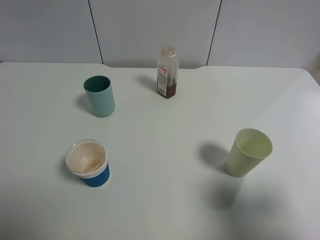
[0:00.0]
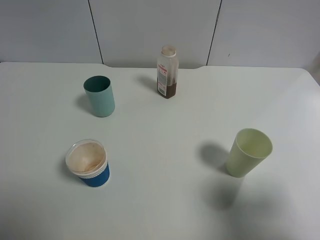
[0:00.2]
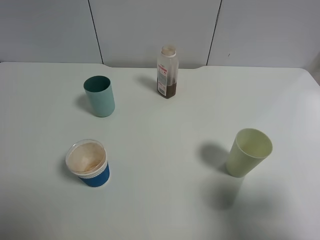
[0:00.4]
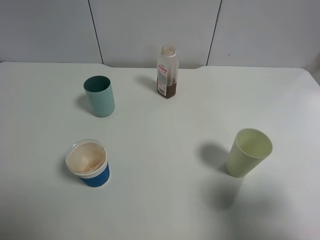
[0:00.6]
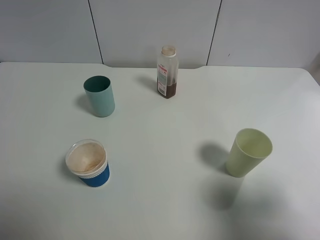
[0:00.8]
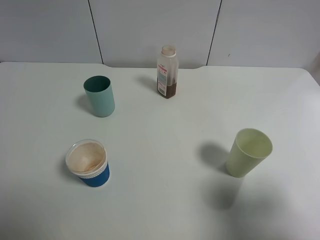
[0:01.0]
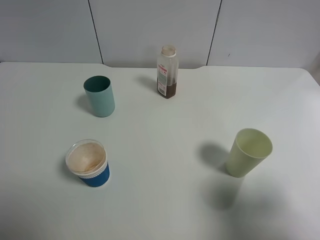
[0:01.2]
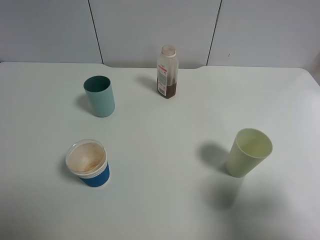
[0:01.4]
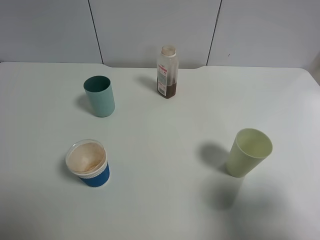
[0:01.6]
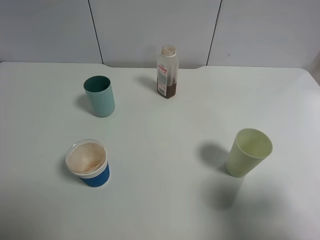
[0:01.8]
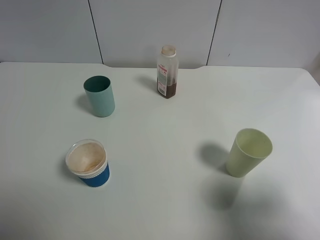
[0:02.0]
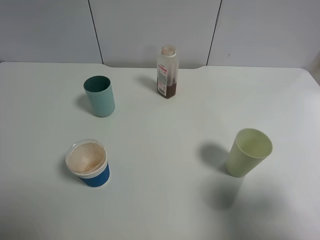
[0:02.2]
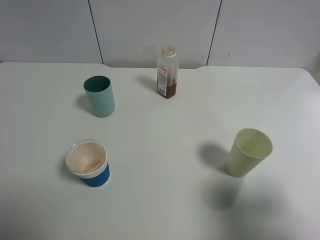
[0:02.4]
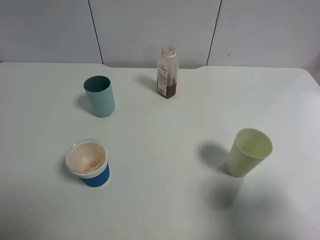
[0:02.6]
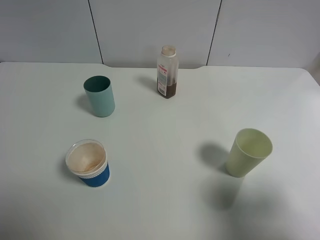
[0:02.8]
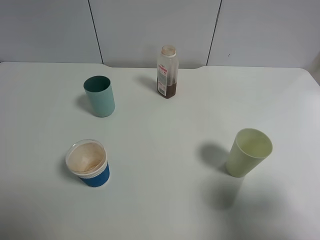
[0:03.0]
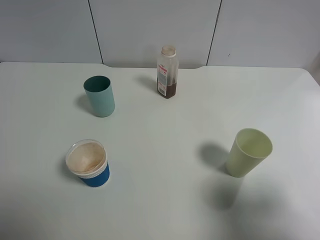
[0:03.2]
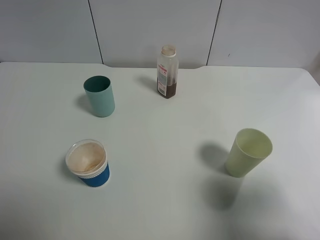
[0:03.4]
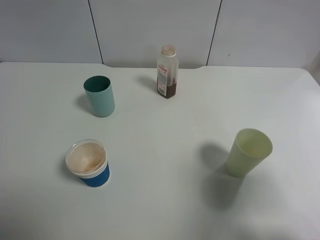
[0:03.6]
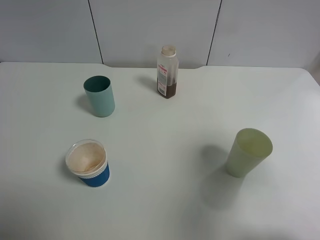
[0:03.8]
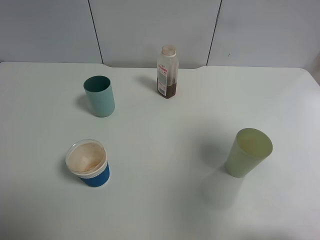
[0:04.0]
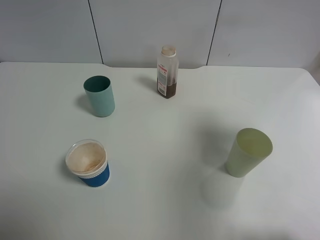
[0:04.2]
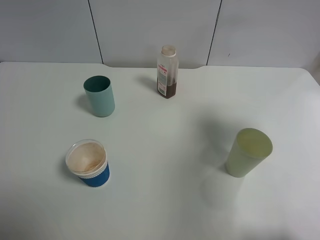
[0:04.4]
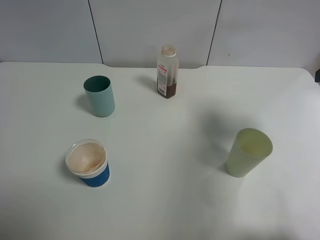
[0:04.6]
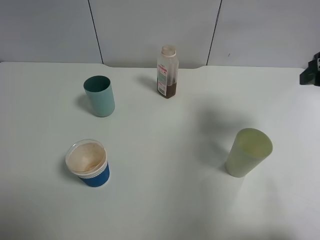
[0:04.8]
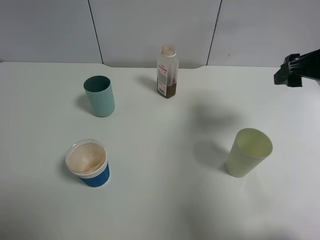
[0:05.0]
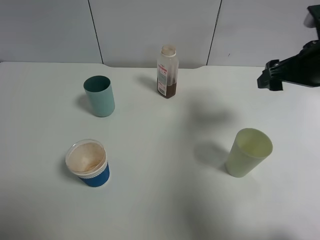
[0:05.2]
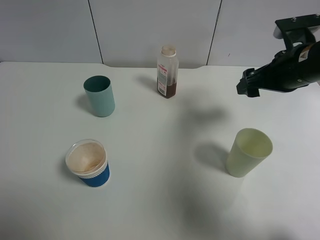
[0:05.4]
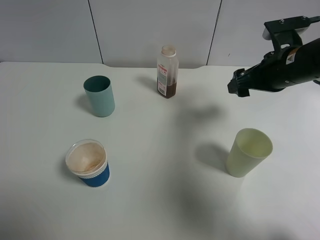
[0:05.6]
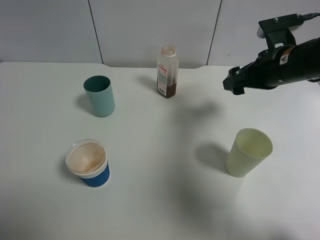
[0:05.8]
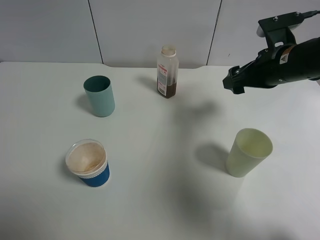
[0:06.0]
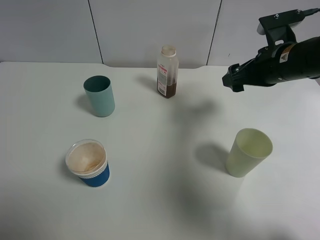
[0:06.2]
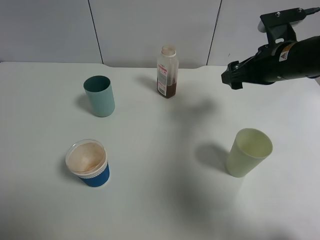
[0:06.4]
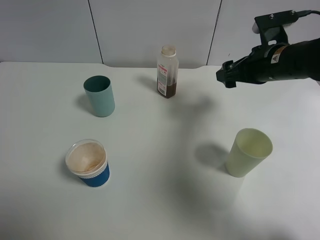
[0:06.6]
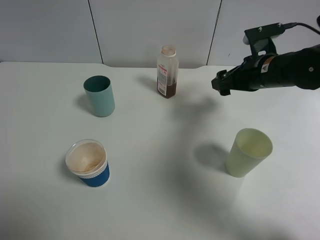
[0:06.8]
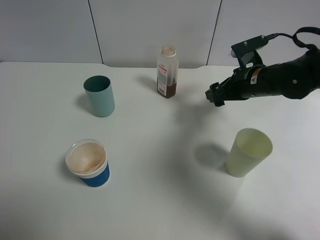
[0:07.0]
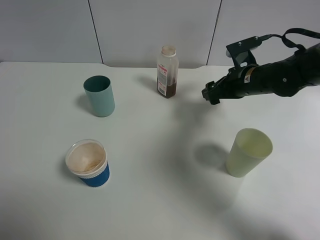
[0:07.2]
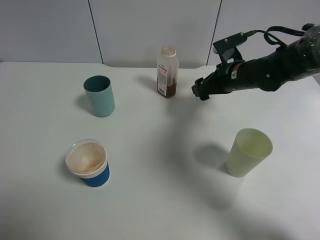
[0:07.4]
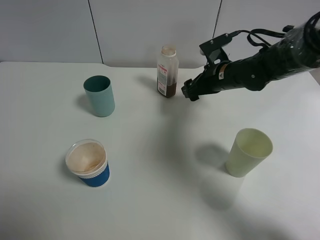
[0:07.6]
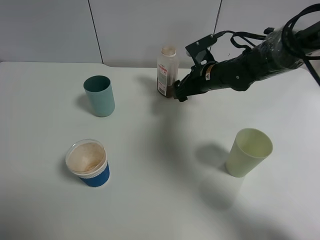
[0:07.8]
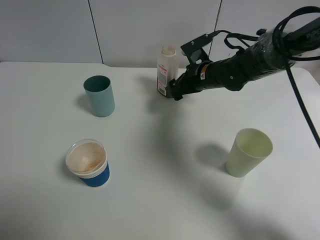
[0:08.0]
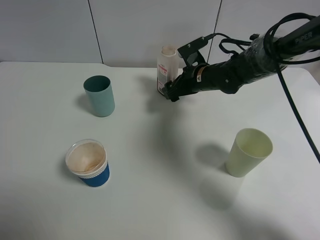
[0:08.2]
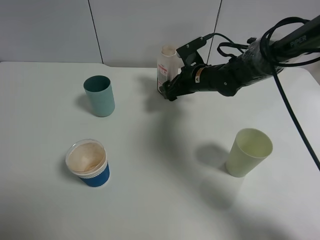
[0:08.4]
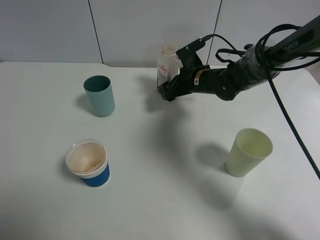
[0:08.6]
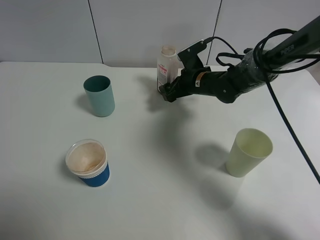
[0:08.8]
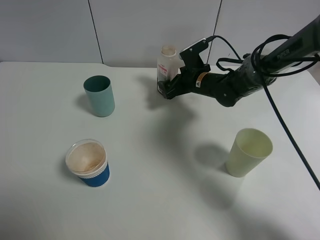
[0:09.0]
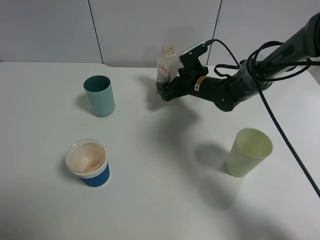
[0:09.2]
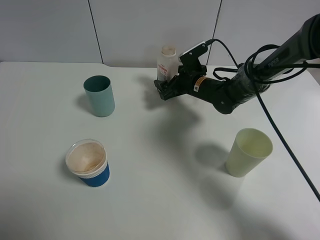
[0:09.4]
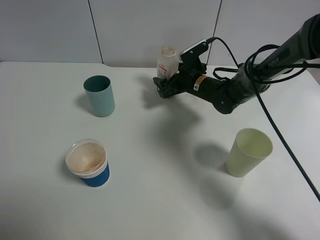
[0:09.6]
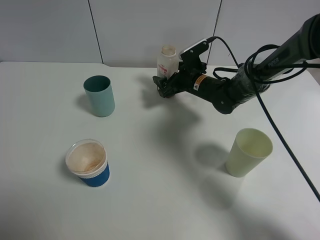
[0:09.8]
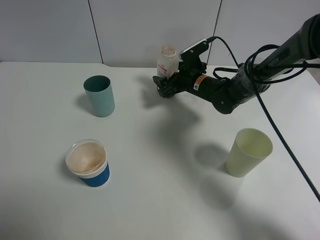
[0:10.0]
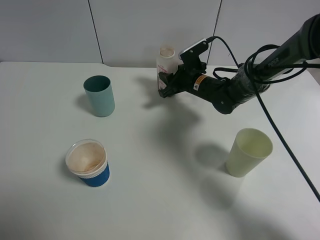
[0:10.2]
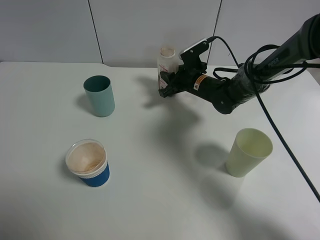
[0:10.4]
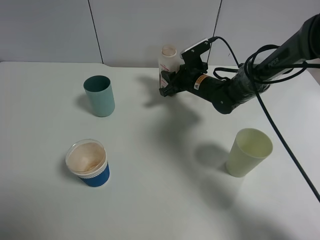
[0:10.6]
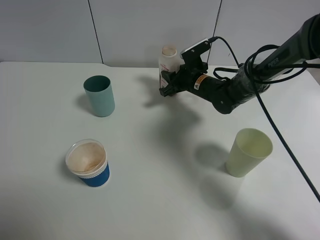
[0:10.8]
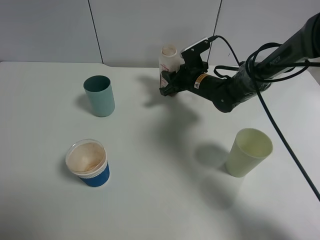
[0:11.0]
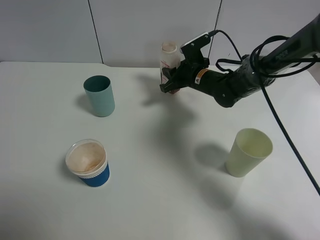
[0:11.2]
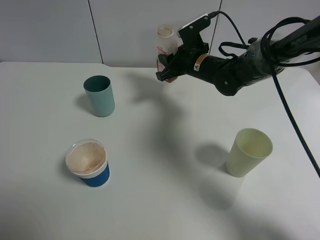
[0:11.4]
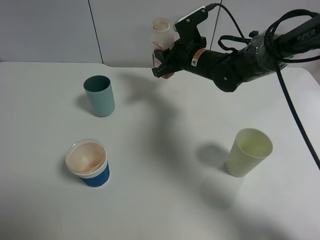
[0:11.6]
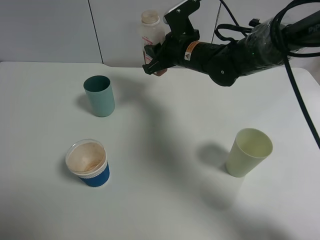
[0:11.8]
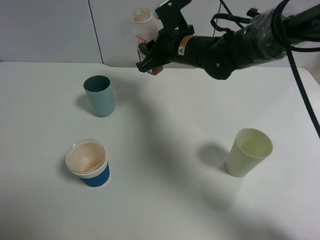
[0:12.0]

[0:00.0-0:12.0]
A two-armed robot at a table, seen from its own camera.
Task of the whole recording: use a gripper to hold the bottle of the drink and pour it into a random cup.
Step, 0:00.0 to 0:10.2: Grasp the cranberry juice bottle with the right gripper.
0:00.0 to 0:03.0: The two grippers keep their place.
0:03.0 to 0:04.4: The right gripper goes about 20 cm forward.
0:04.4 to 0:06.0: The right gripper is displaced forward, downward and to the left by some 20 cm.
0:06.0 to 0:07.6: The right gripper is displaced downward, forward and to the left by some 15 cm.
0:07.6 to 0:09.0: The right gripper shifts by some 5 cm.
0:09.0 to 0:10.4: The right gripper closes up.
0:10.4 to 0:12.0: The right gripper goes about 15 cm upward and to the left.

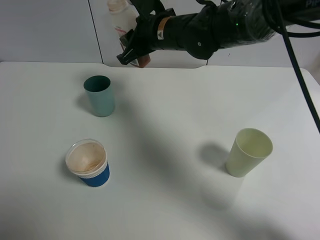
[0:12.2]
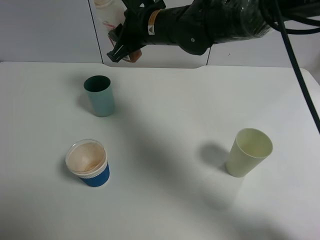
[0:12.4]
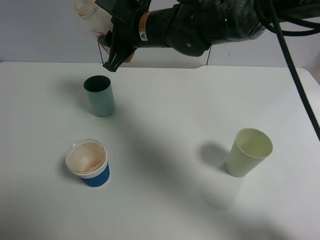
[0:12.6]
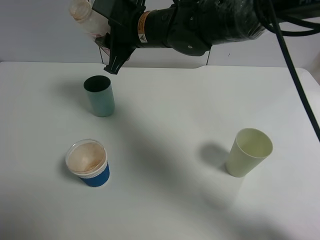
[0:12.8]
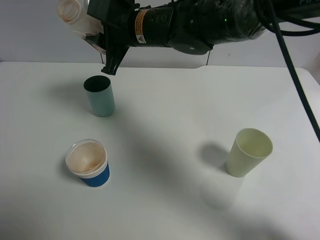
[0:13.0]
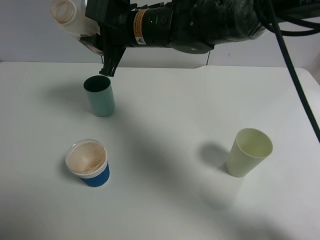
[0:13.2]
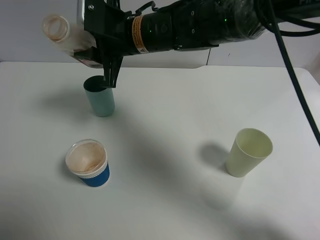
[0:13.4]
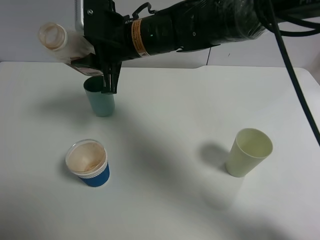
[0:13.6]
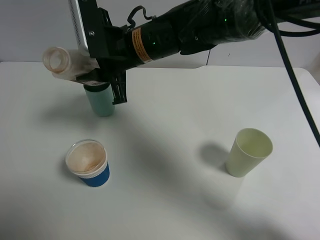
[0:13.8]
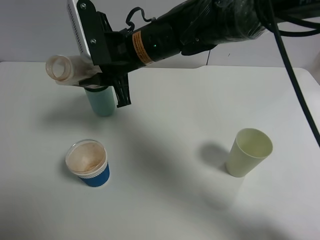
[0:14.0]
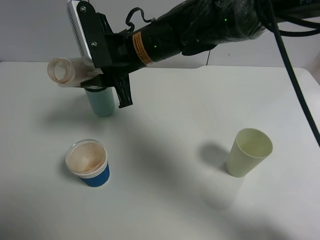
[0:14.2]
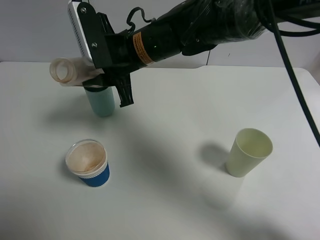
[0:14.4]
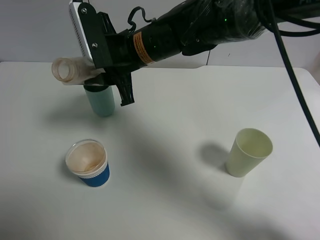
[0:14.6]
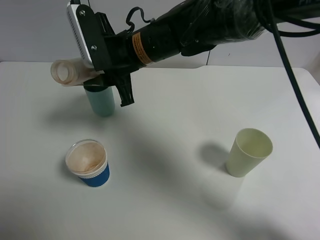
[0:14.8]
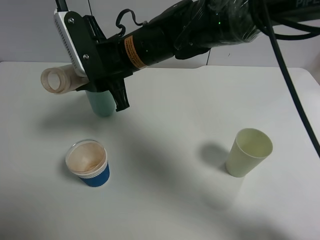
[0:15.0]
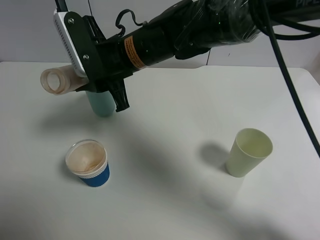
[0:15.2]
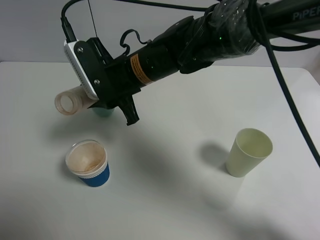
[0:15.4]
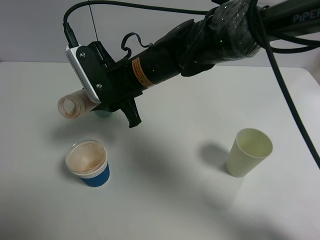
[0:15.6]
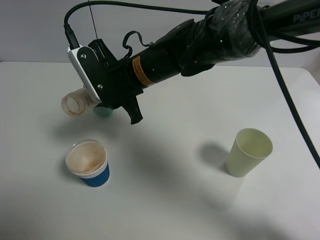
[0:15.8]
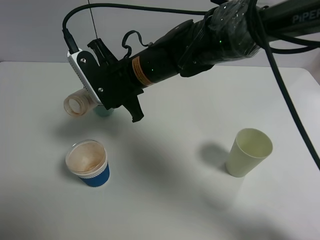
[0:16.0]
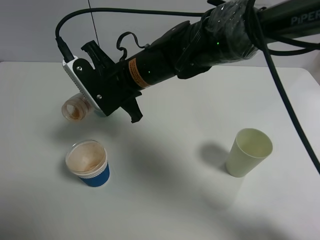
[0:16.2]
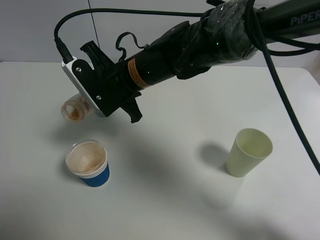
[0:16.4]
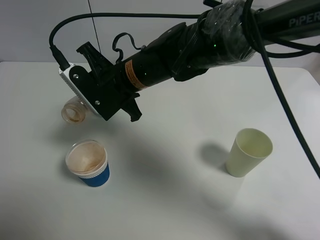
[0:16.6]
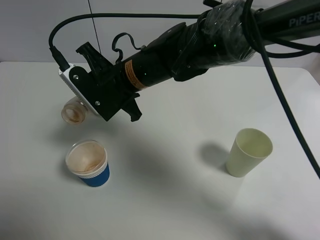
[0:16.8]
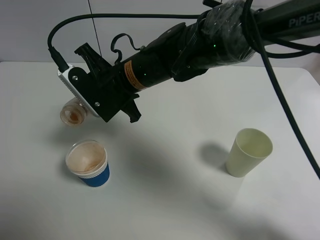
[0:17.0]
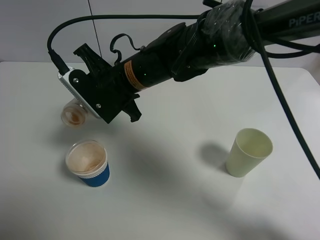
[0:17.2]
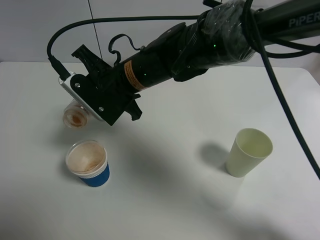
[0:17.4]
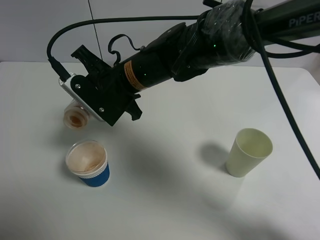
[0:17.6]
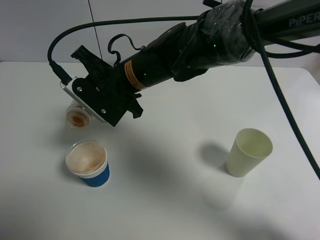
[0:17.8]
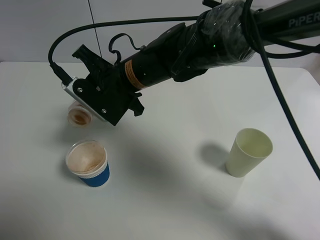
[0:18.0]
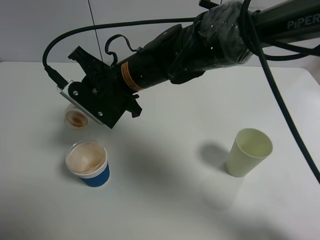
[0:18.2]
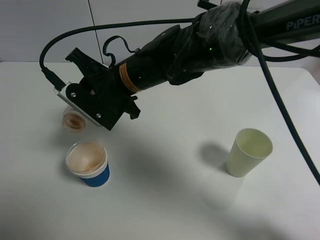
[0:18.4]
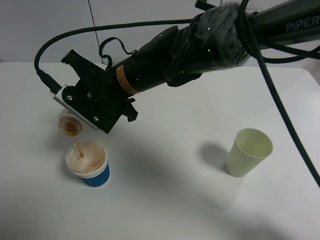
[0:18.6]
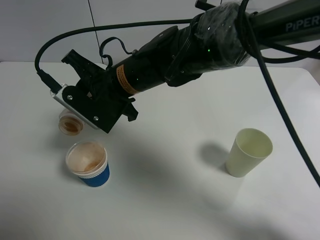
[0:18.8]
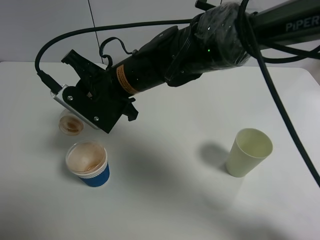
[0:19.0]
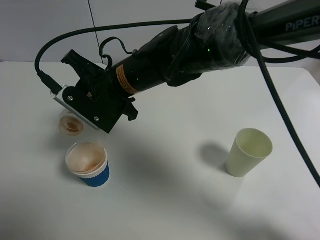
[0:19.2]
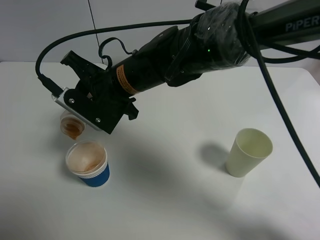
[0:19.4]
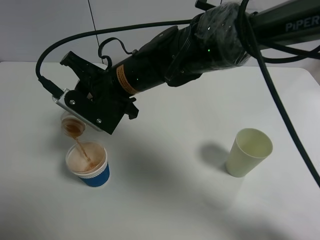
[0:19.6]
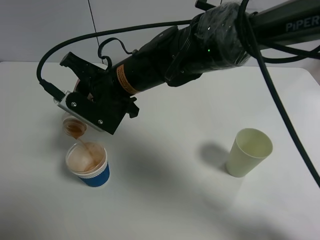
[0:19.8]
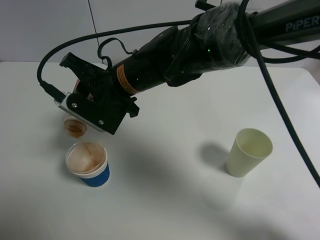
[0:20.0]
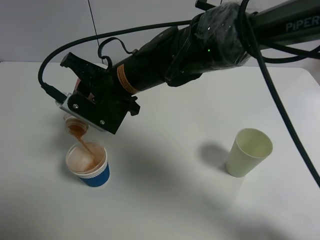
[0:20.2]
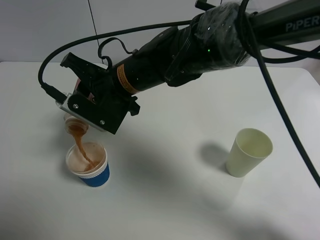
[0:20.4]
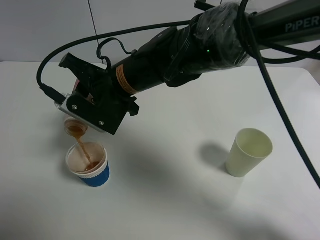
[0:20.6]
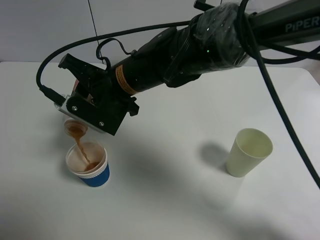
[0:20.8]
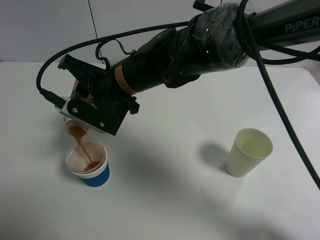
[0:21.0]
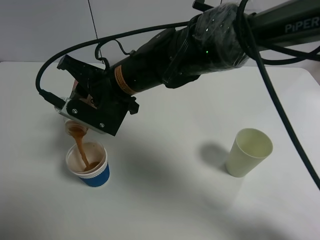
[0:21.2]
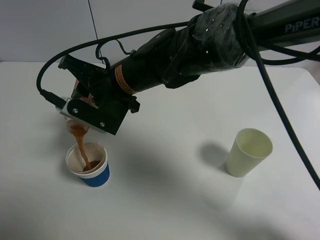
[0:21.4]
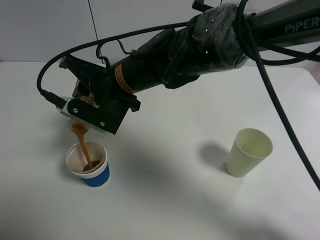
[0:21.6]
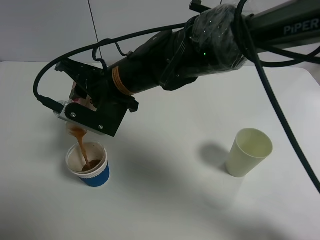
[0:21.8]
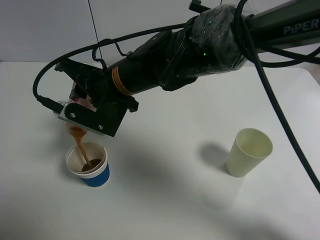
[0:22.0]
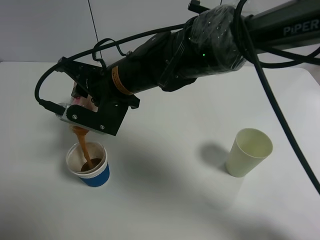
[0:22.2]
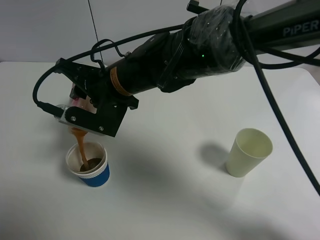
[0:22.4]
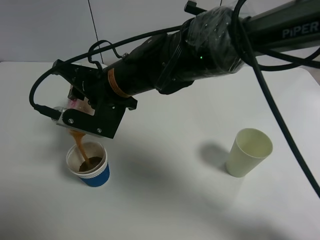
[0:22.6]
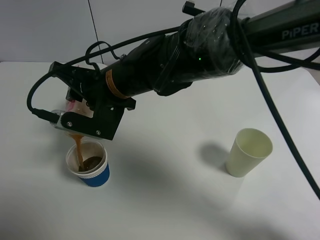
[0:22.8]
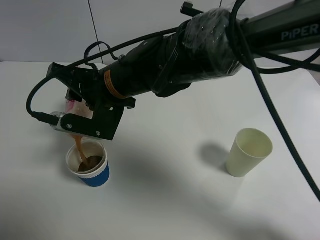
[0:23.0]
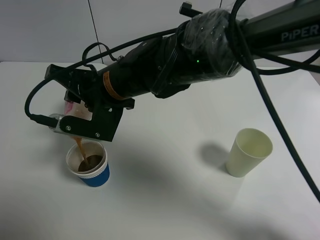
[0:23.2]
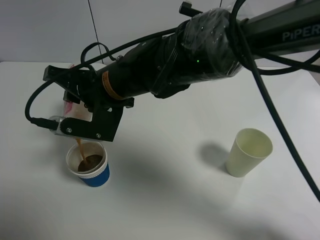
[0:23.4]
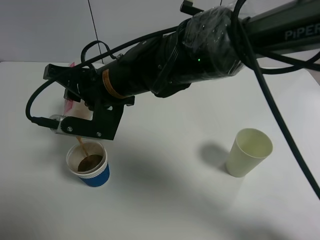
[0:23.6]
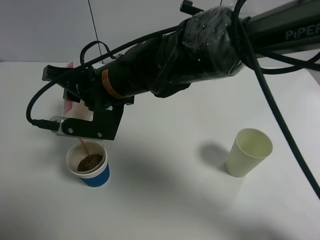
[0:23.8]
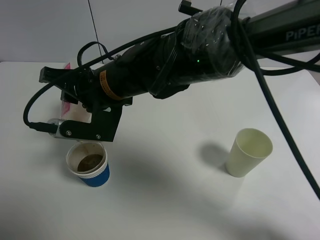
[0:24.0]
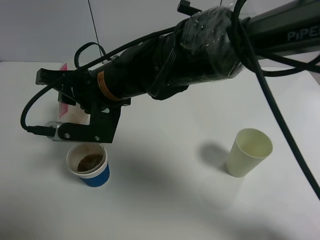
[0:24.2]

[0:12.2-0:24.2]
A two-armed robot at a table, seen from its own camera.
Task of the whole recording: use a gripper to hold the bottle of the drink and pour it into a random cup.
0:12.2 to 0:13.8: The right gripper travels backward by approximately 5 cm.
0:13.8 to 0:15.2: The grippers stay close to where they were, moving slightly.
0:16.6 to 0:19.8: There are only small adjustments of the grippers.
0:19.8 to 0:22.6: The grippers stay close to where they were, moving slightly.
0:22.6 to 0:24.2: There are only small adjustments of the grippers.
